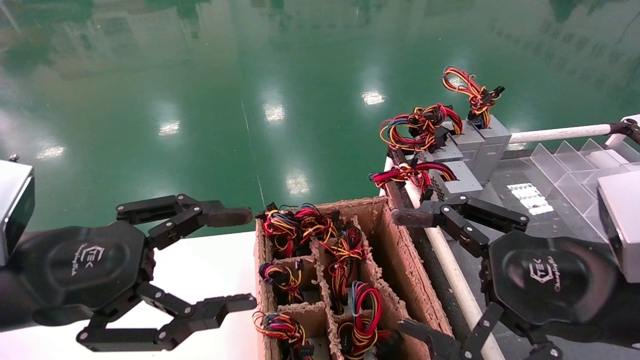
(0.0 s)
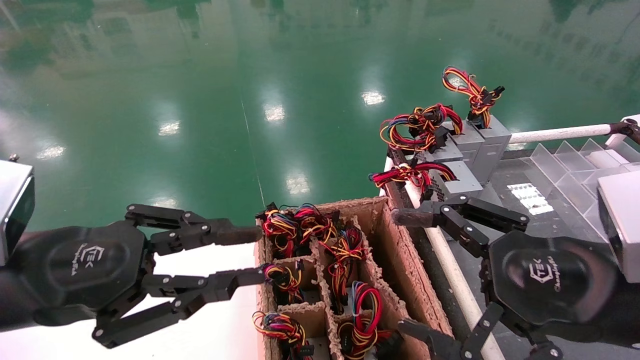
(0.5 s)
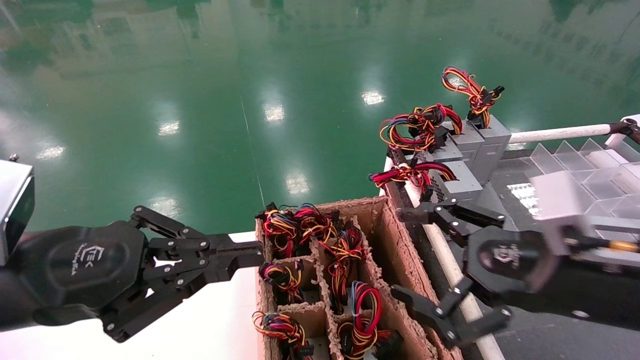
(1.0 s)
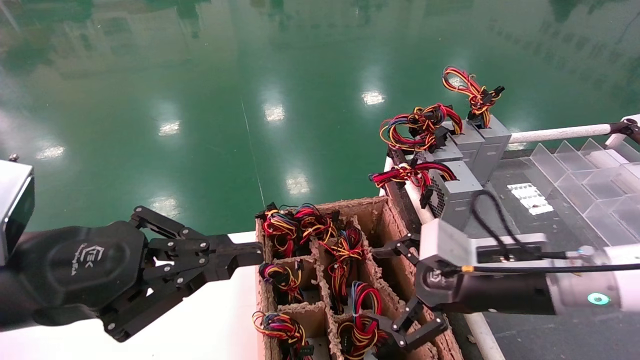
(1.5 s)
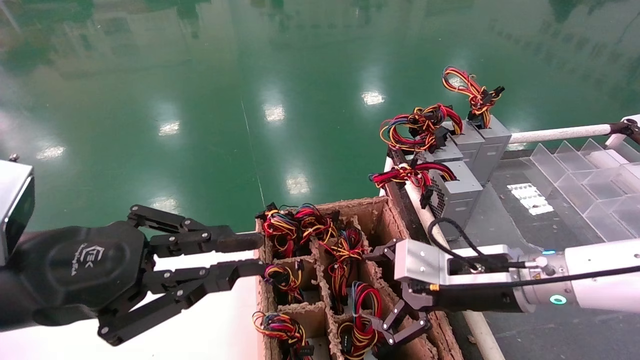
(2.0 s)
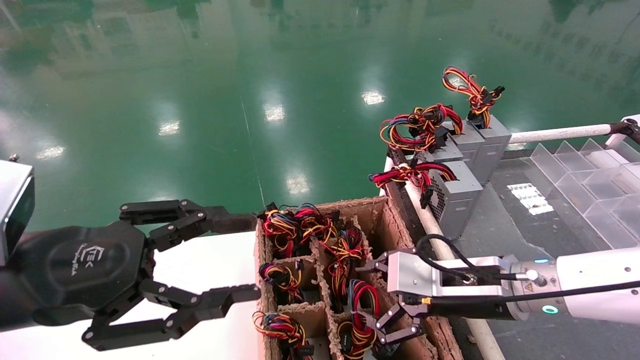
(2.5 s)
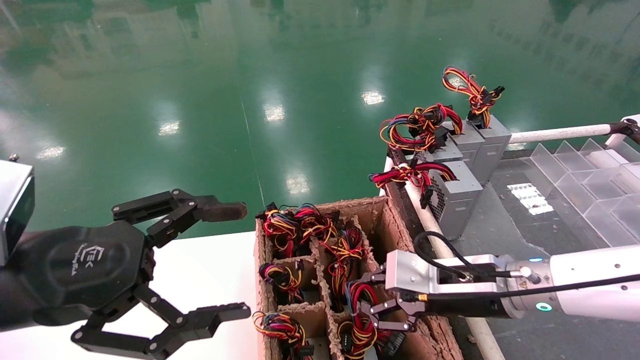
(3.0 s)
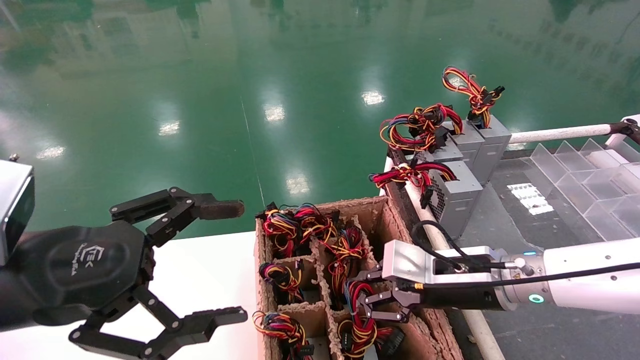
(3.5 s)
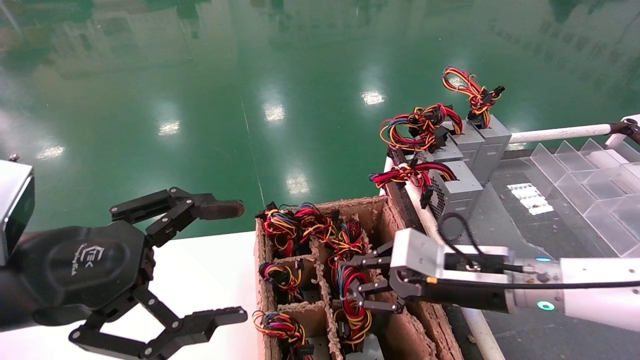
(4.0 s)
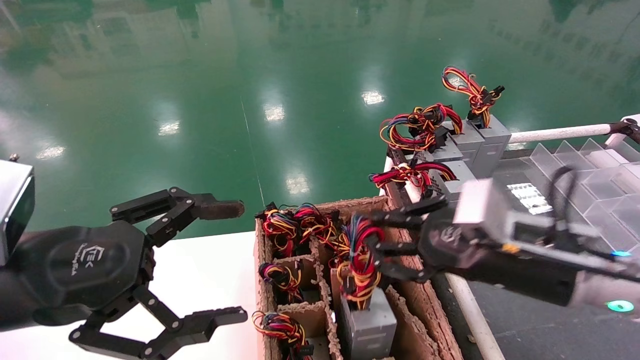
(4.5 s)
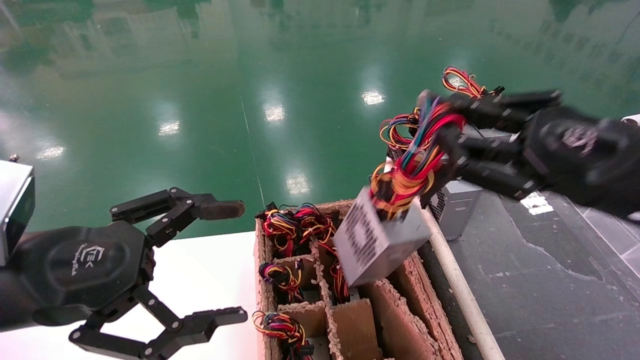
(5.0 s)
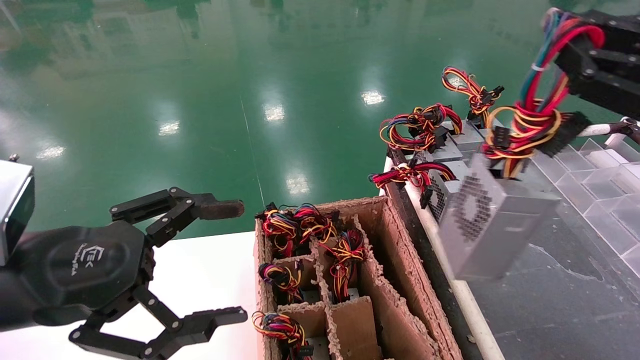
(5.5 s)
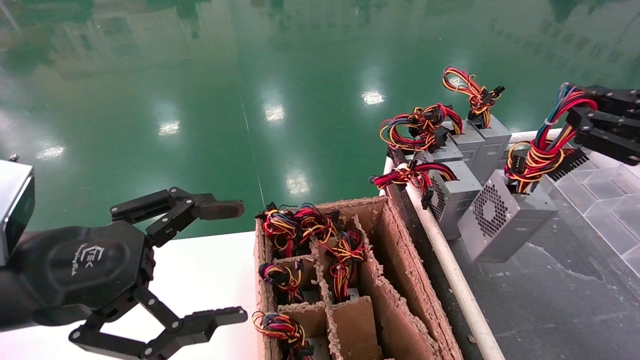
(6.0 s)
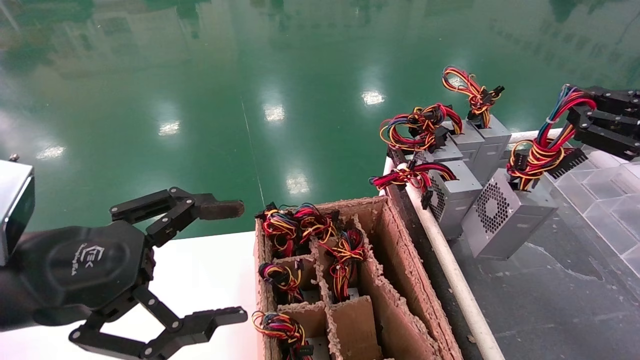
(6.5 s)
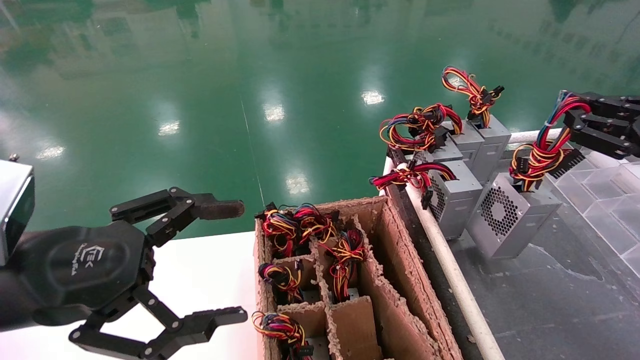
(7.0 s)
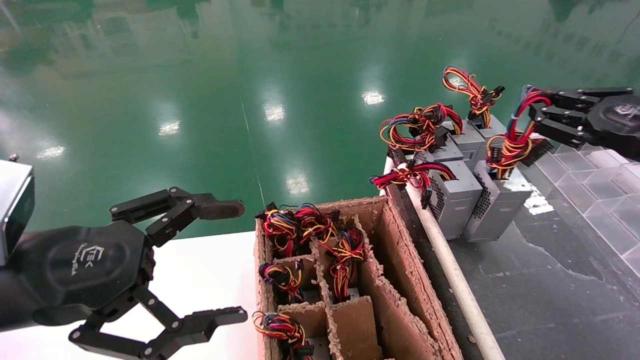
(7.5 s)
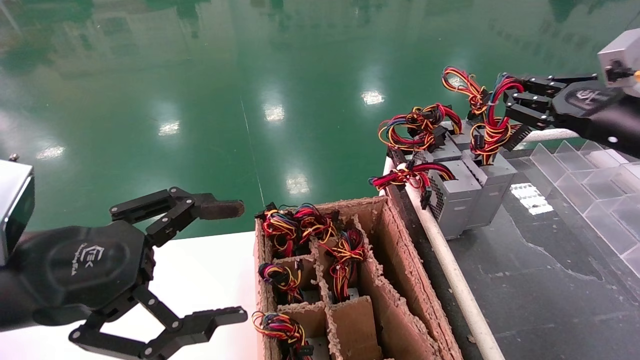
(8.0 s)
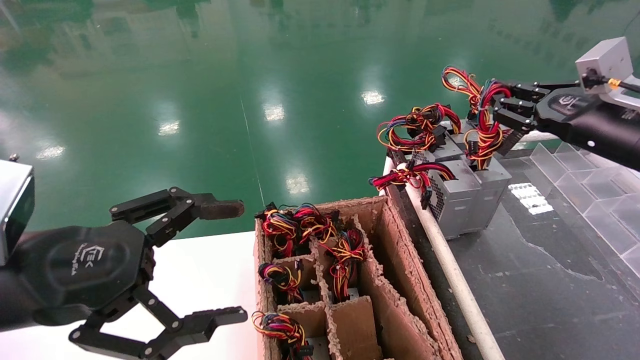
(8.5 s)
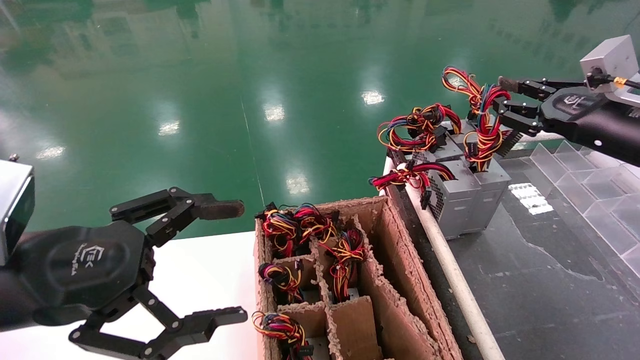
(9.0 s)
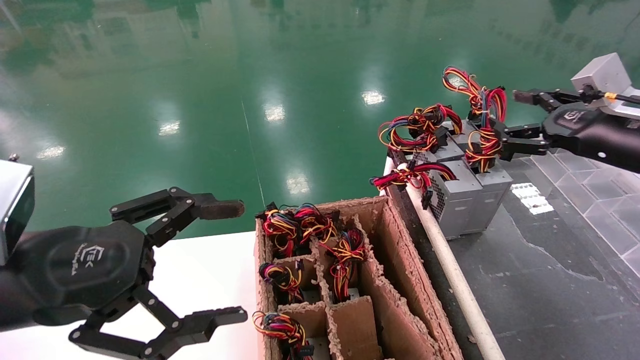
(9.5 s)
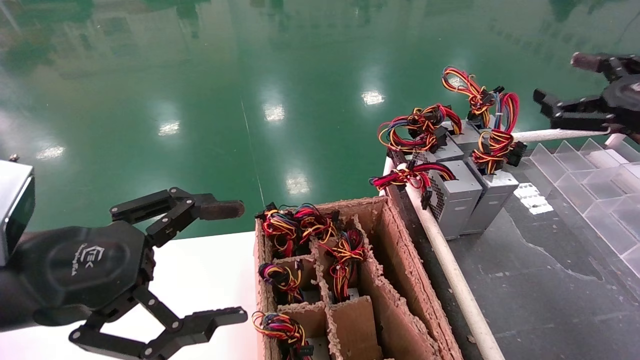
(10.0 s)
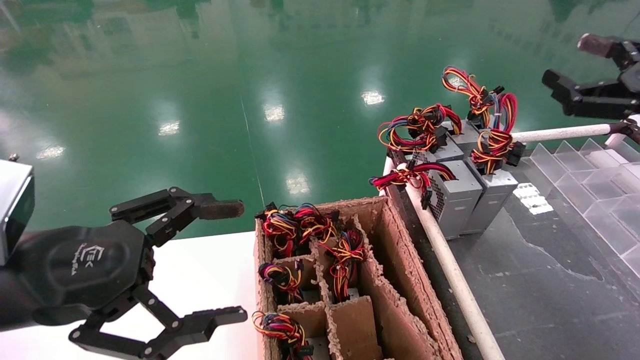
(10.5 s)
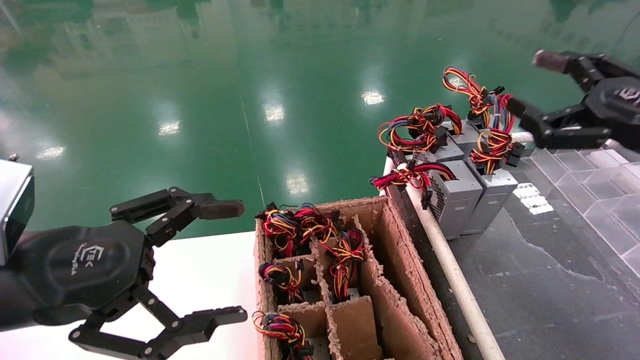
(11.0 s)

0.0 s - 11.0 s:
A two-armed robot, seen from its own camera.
Step, 1.0 s - 3.0 s: Grab and lift the power supply from the large box.
Step, 3.5 s - 9.0 s: Place the power supply on the operating table.
0.0 s - 2.0 s: The right gripper shifts roughly 15 cm forward and downward. Meanwhile the left gripper closes.
2.0 s - 3.5 s: The left gripper opens up. Meanwhile the right gripper closes.
3.5 s - 5.5 s: The right gripper travels upward, to the right and backward by some 30 cm.
5.5 s - 7.5 s: The right gripper goes roughly 10 cm forward and to the right.
7.5 s - 9.0 s: The right gripper shifts by roughly 5 cm.
9.0 s - 11.0 s: The right gripper heads backward, covering about 10 cm, and opens.

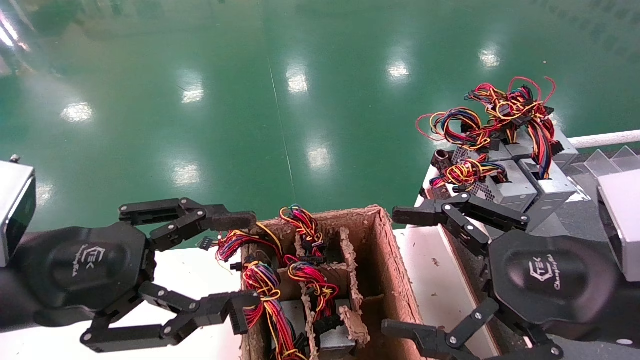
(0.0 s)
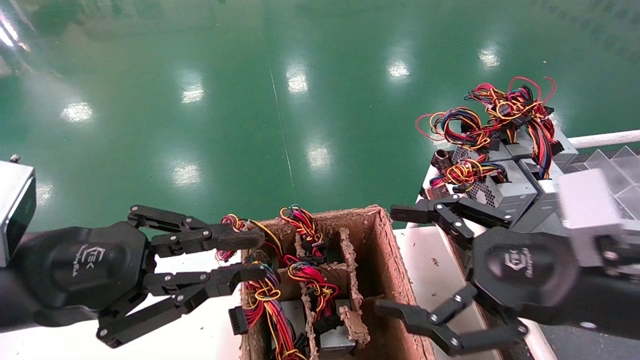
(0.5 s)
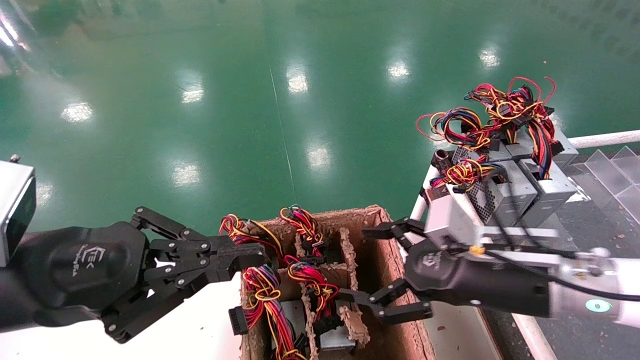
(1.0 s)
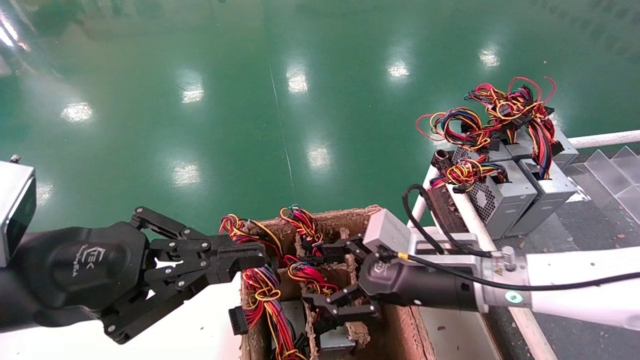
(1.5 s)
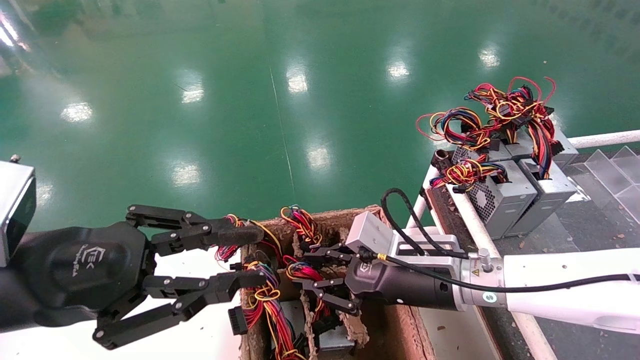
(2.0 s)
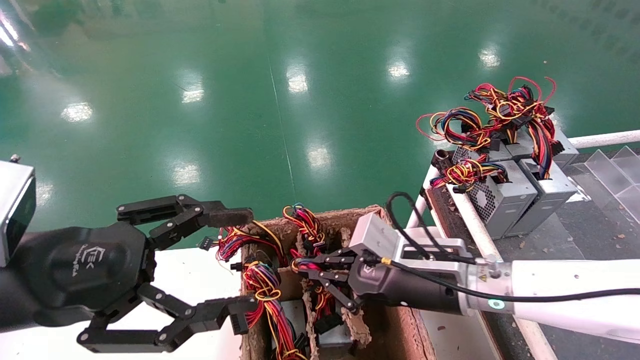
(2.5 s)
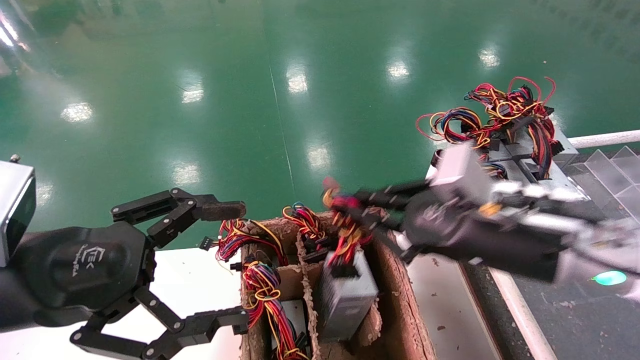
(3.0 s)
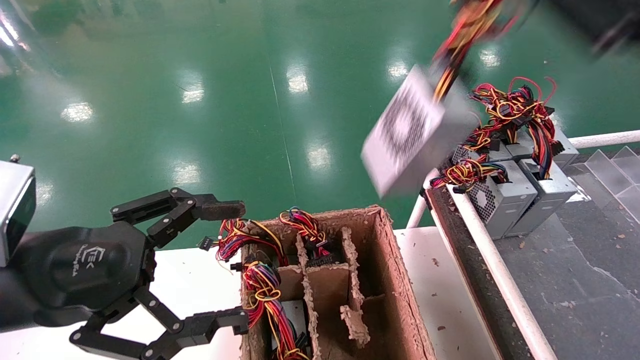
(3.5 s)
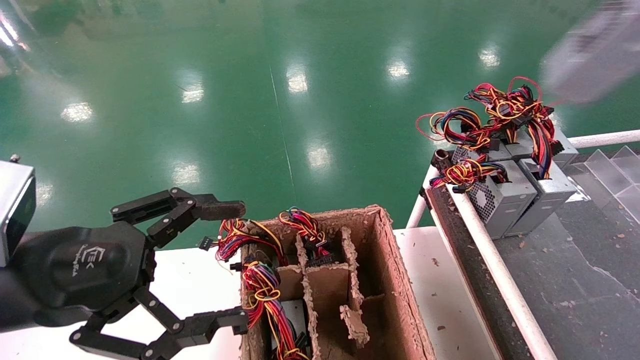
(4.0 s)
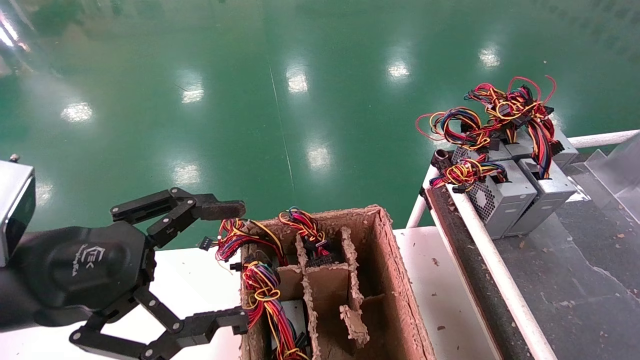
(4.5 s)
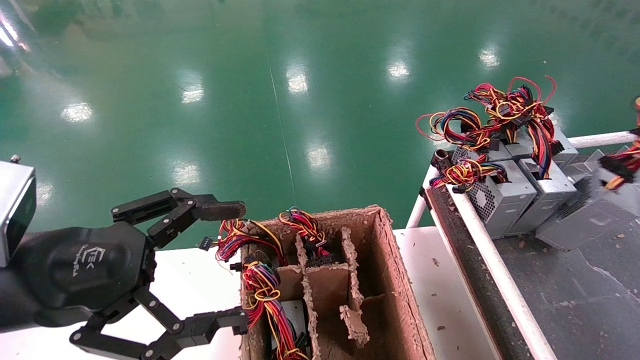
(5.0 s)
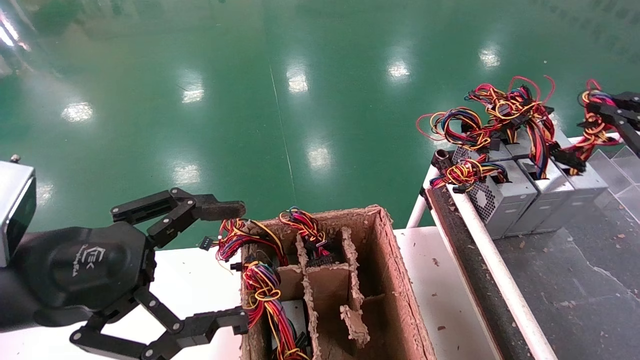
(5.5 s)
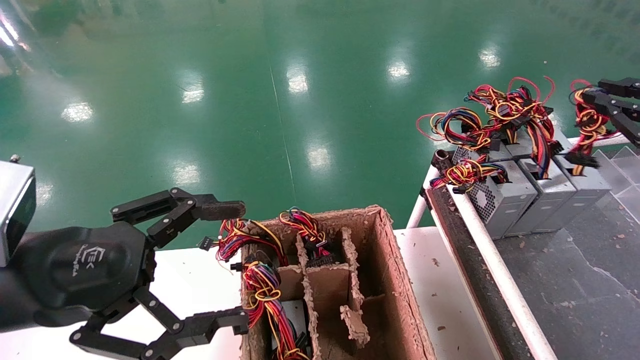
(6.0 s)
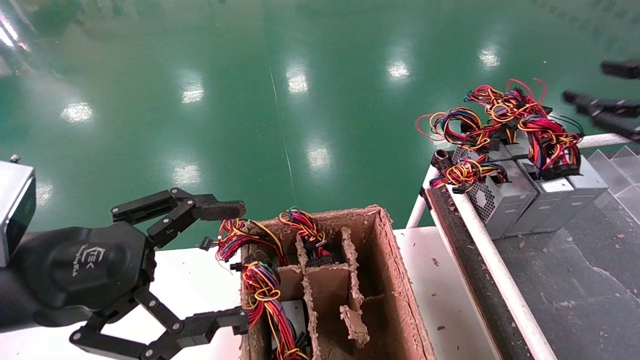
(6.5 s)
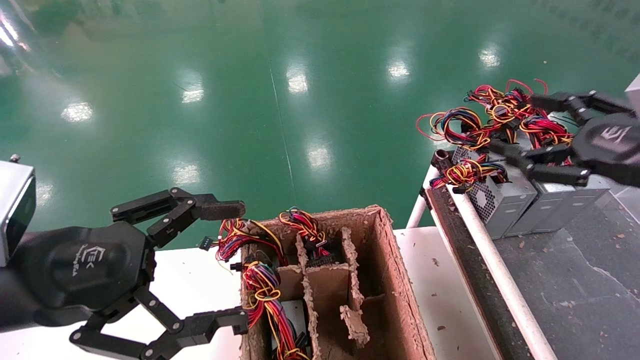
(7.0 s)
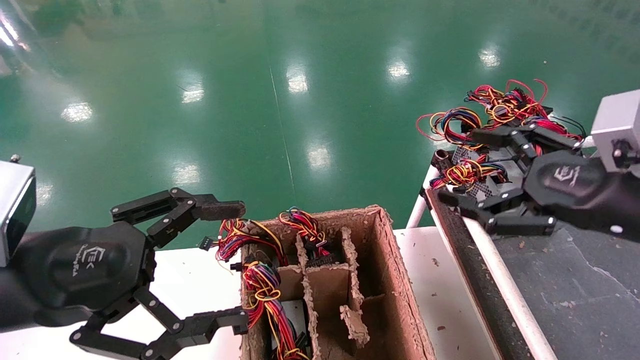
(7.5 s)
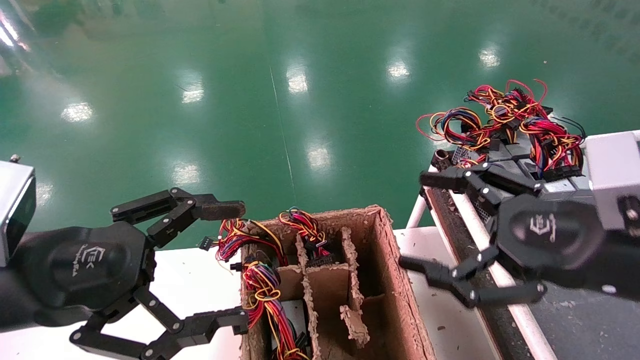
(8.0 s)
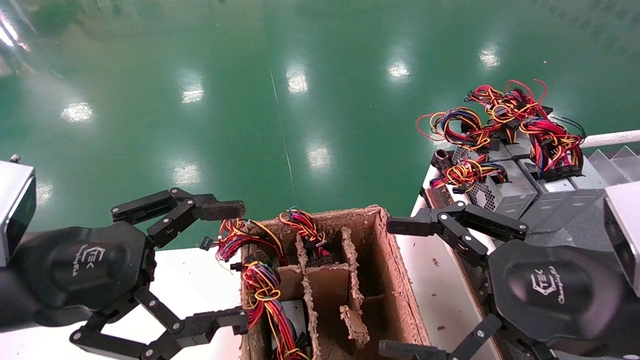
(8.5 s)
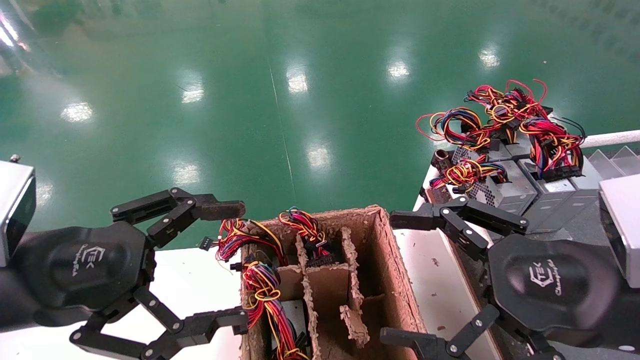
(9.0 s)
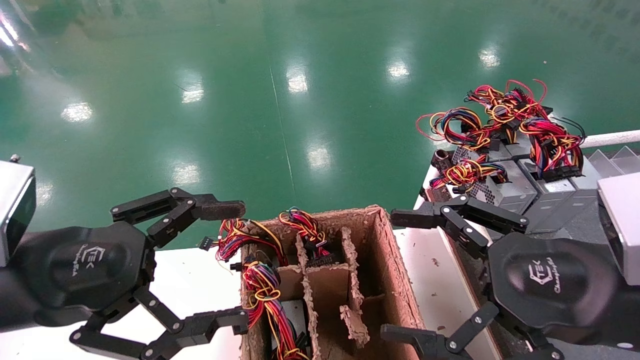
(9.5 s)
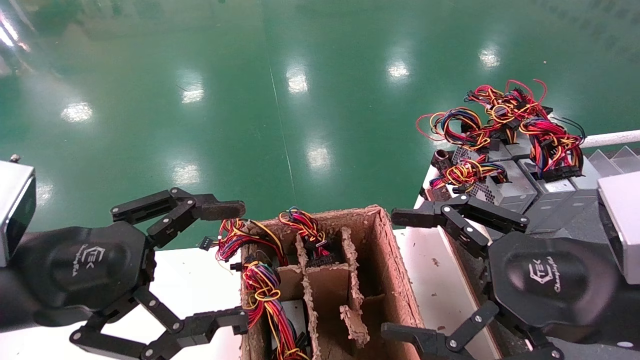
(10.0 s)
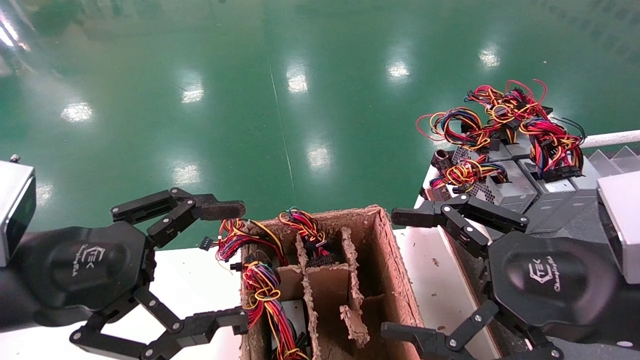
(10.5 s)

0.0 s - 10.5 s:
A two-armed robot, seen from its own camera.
Step, 1.0 s - 2.0 s: Grab and lift the power supply from the large box.
Step, 2.5 s - 6.0 s: Place the power supply on the operating table.
0.0 s - 2.0 s: The right gripper heads forward, to the left and downward, covering some 20 cm, and closes up; the left gripper closes up.
2.0 s - 4.0 s: The right gripper travels upward, to the right and backward by approximately 40 cm, and closes up, while the left gripper opens up.
4.0 s - 6.5 s: The right gripper heads downward and forward, covering roughly 15 cm.
6.5 s - 8.5 s: The right gripper shifts some 20 cm to the left, backward and downward, and opens its fingers.
8.5 s - 10.5 s: Neither gripper changes place.
